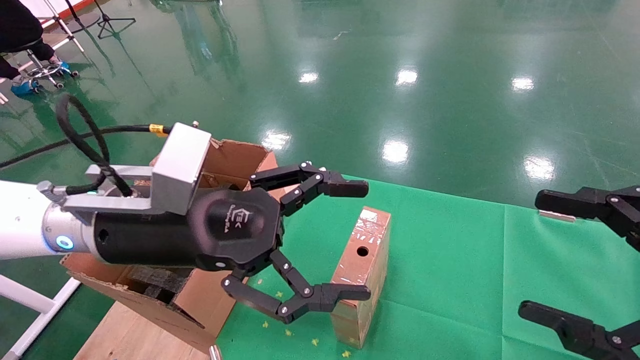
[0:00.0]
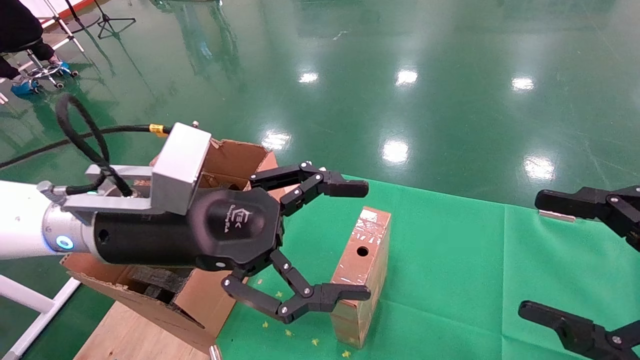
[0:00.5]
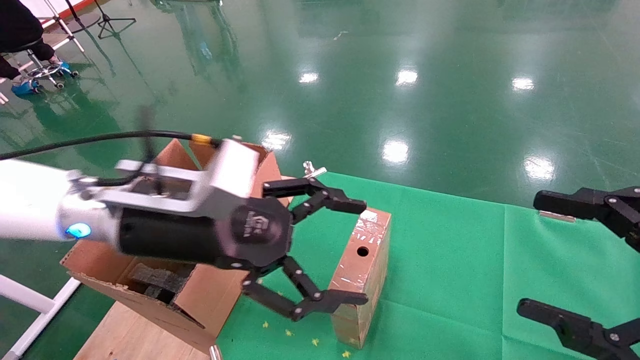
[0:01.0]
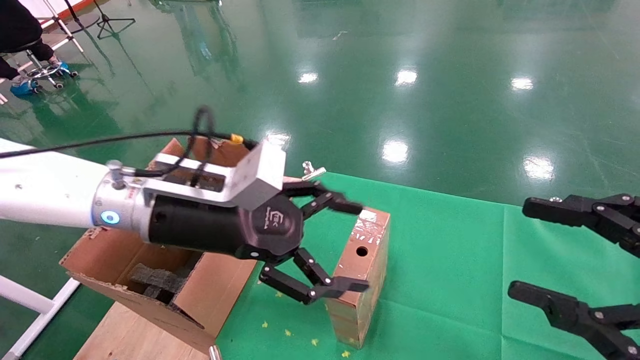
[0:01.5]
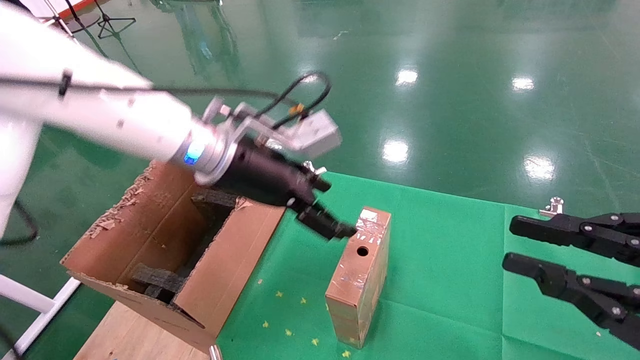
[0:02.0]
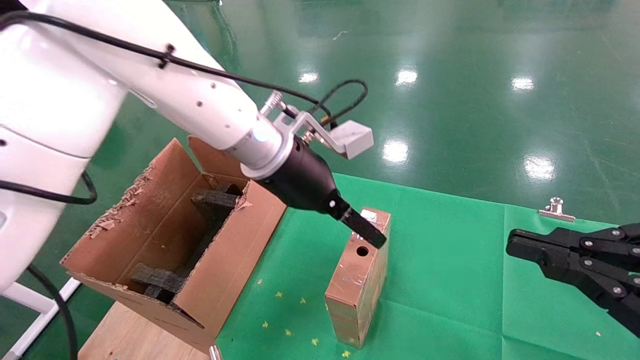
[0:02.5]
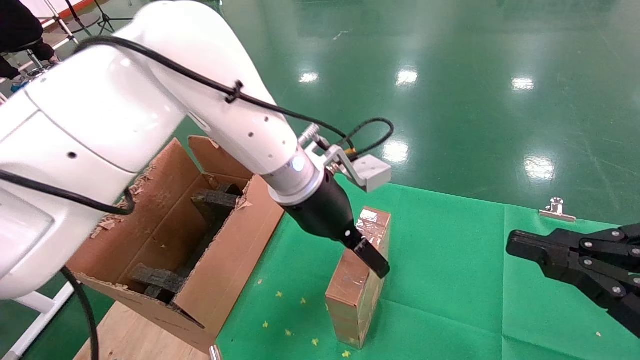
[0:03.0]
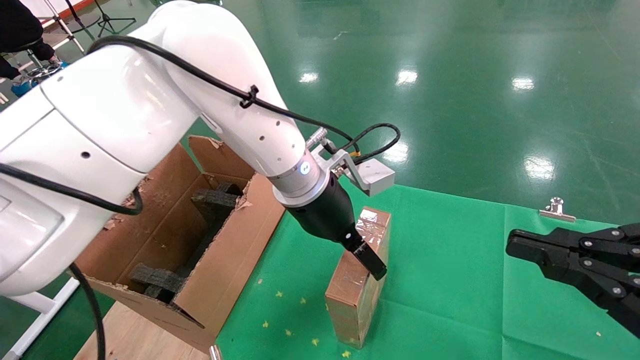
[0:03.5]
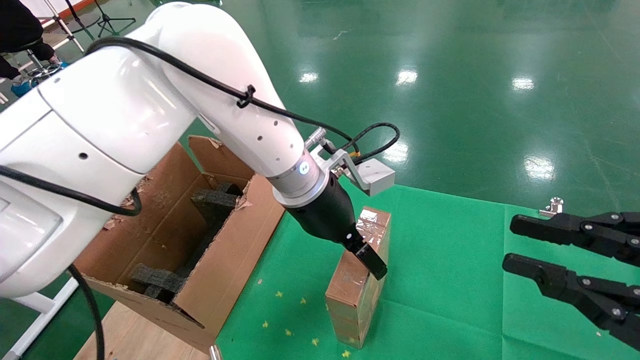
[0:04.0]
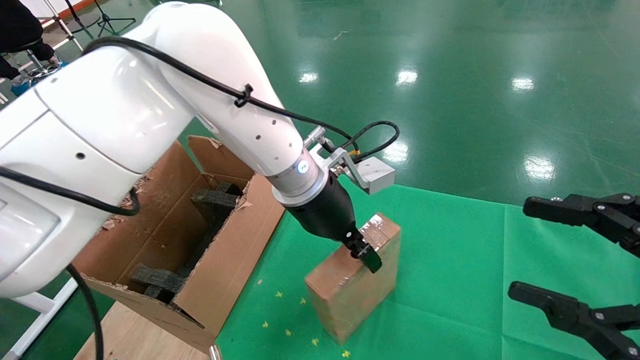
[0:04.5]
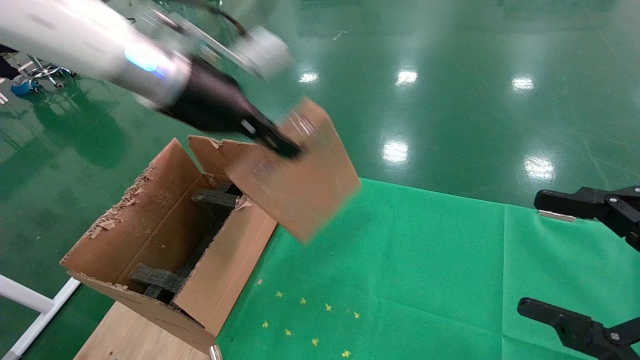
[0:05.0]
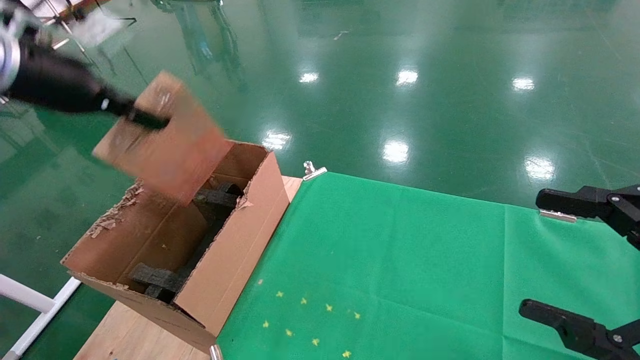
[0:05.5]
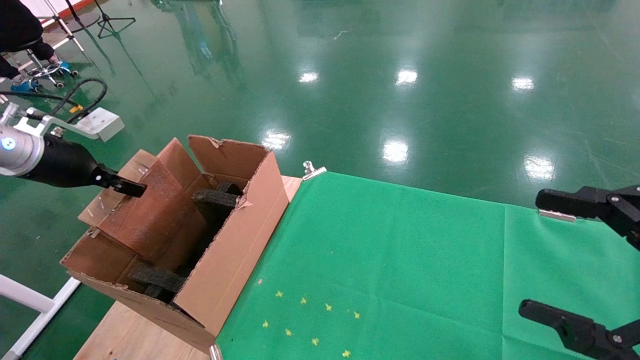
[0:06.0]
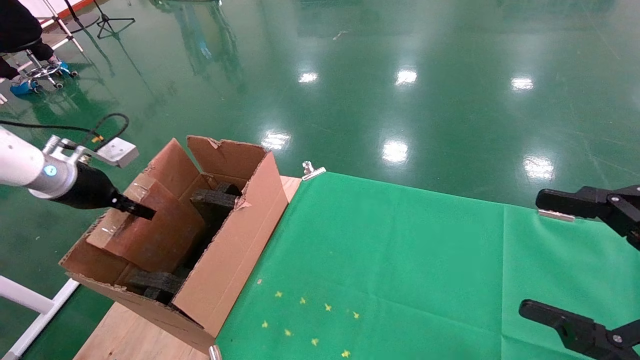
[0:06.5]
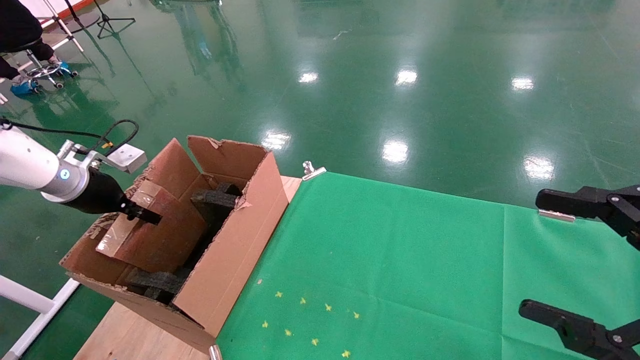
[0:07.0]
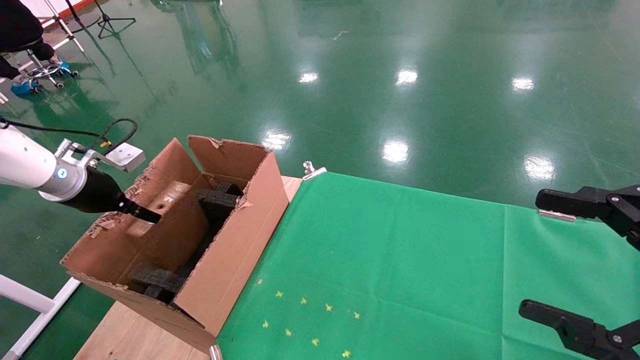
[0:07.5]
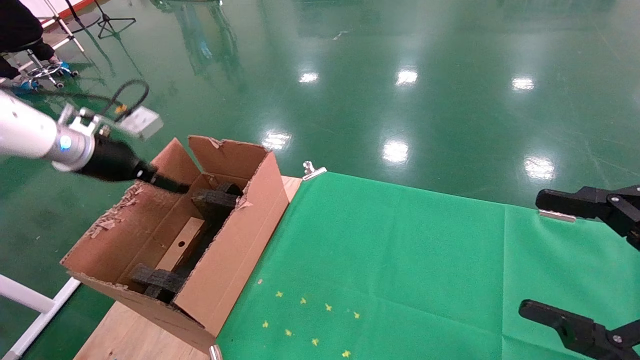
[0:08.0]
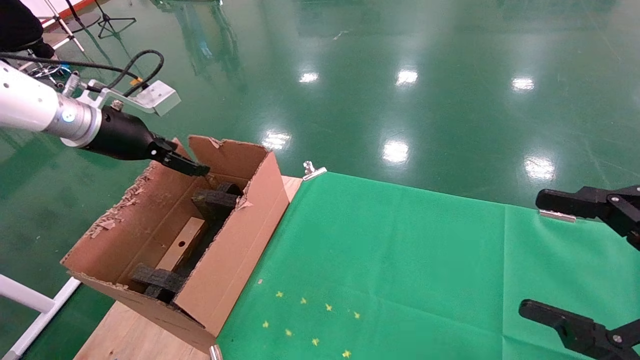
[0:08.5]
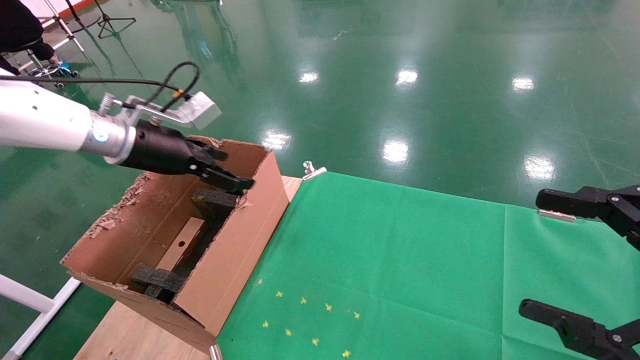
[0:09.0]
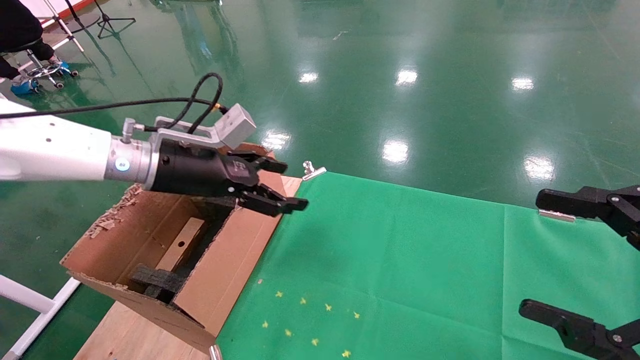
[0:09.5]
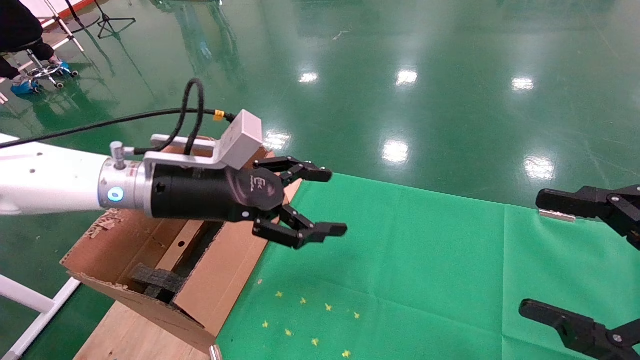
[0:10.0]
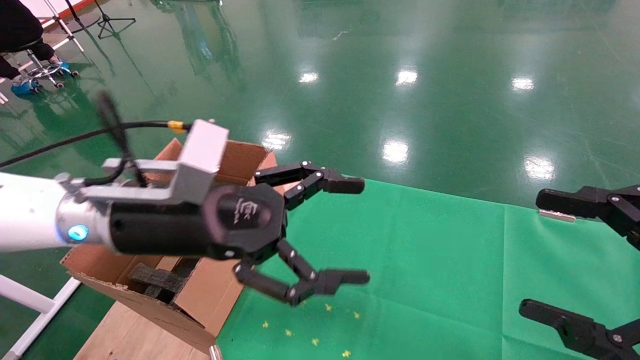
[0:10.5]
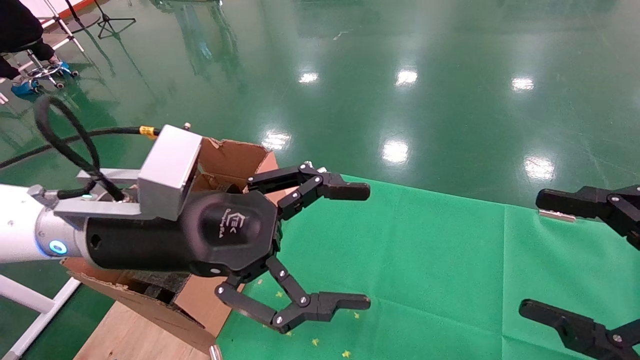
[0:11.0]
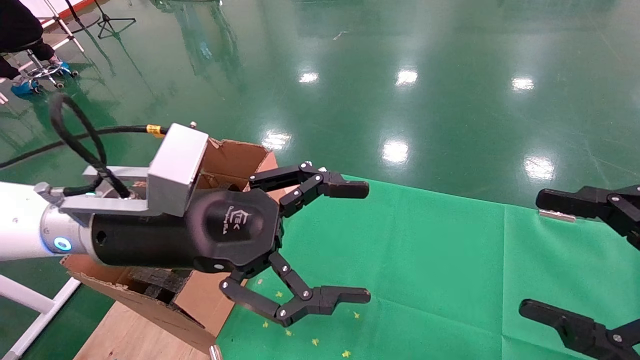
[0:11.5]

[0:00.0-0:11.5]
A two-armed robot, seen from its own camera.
Task of the whole recording: using a robotic arm to pick up a cardboard box and palace it the carton.
Step, 0:01.5 to 0:04.5: Pick up the mouse and the power cord paper box.
Step, 0:05.0 to 0:07.5: Place the mouse and the power cord paper box into the container.
0:00.0 to 0:02.0: The right gripper closes its fingers, while the left gripper is displaced forward and to the right by roughly 10 cm.
0:02.0 to 0:04.0: The left gripper heads to the right, covering roughly 10 cm.
0:04.0 to 0:06.0: The left gripper is displaced to the left by about 40 cm, and closes its fingers, while the right gripper opens its fingers.
0:06.0 to 0:07.5: The left gripper travels downward by about 5 cm.
0:07.5 to 0:09.5: The left gripper moves to the right, some 20 cm, and opens.
0:09.5 to 0:11.5: The left gripper travels backward and to the right by approximately 15 cm.

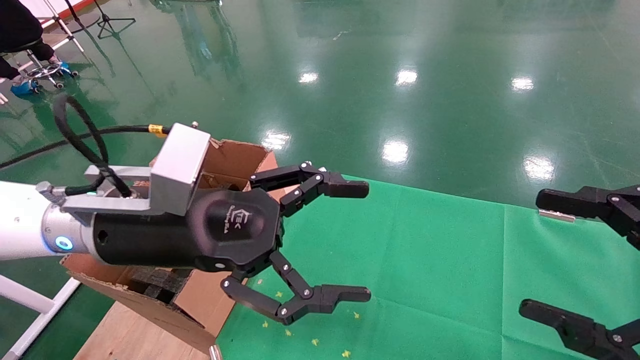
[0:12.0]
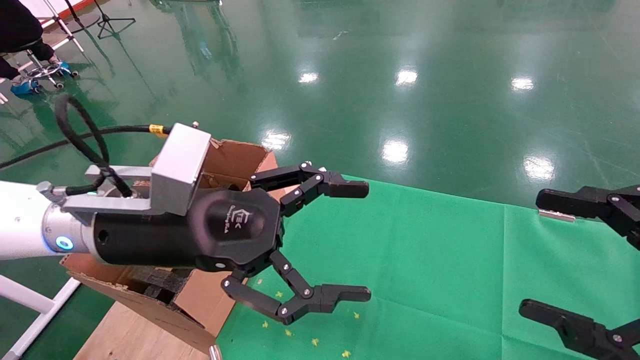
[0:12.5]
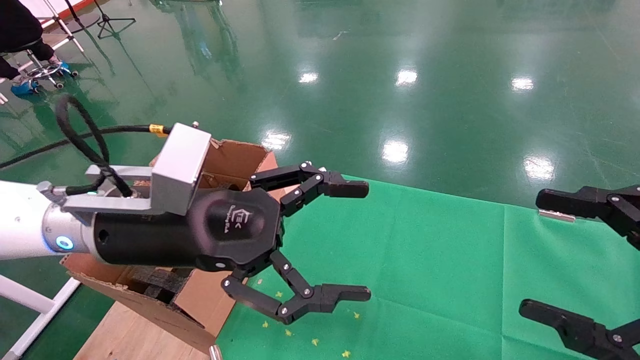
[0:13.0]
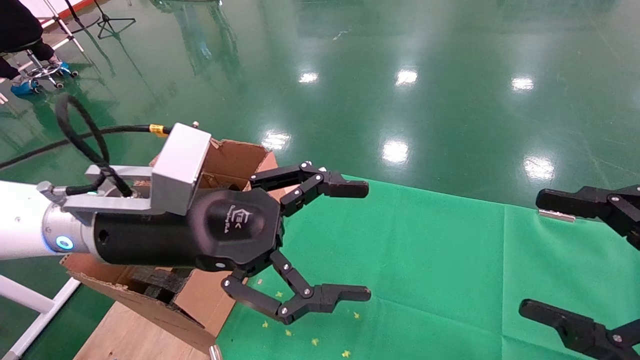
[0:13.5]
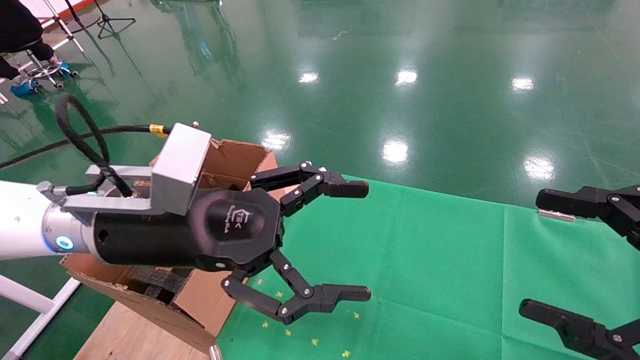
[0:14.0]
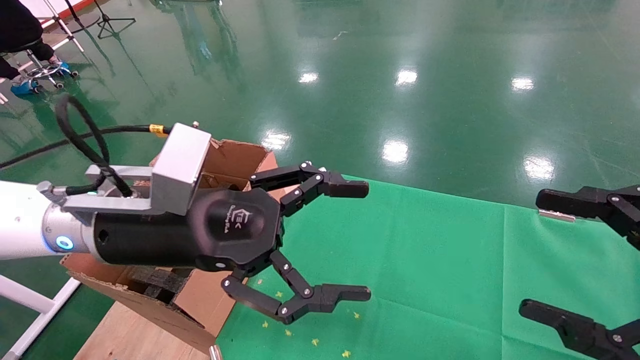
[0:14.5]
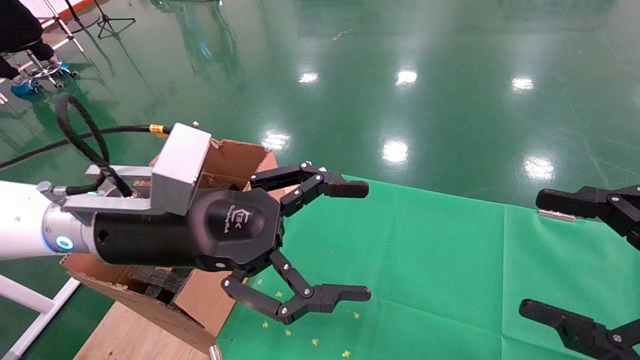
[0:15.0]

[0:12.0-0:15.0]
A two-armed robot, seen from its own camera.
Task of the whole recording: using a robotic arm to pick up a cardboard box and palace it the carton.
0:12.0 to 0:15.0: Both grippers stay about where they are.
